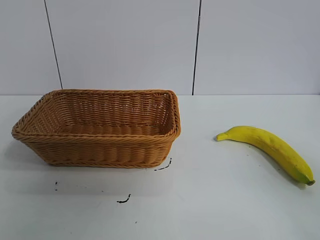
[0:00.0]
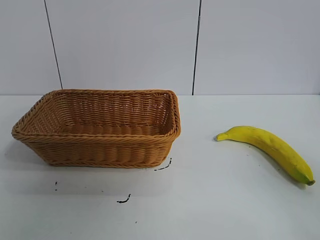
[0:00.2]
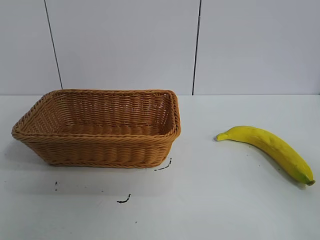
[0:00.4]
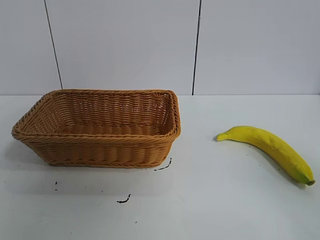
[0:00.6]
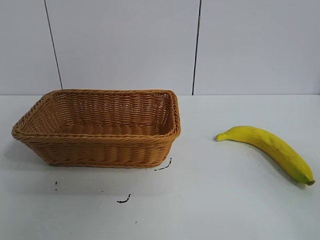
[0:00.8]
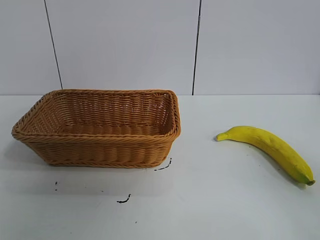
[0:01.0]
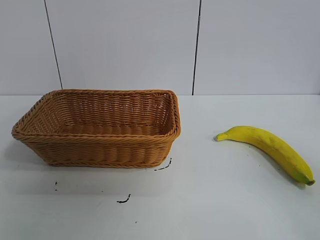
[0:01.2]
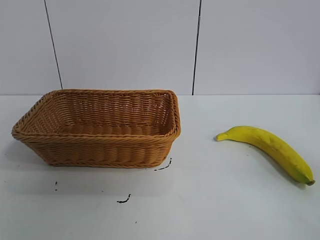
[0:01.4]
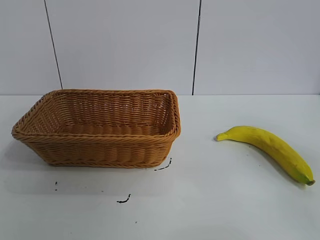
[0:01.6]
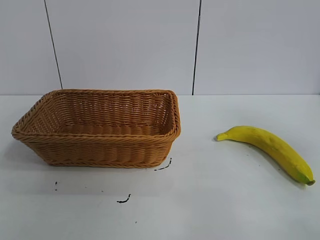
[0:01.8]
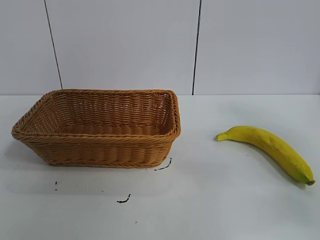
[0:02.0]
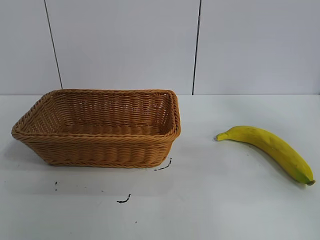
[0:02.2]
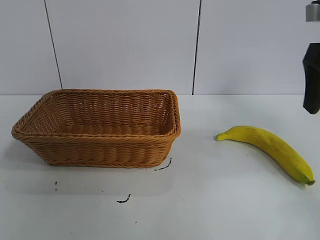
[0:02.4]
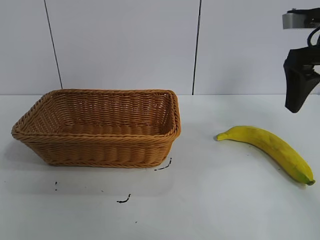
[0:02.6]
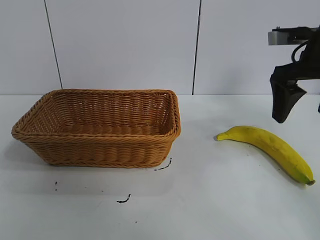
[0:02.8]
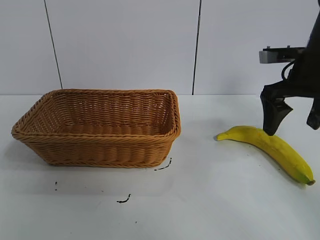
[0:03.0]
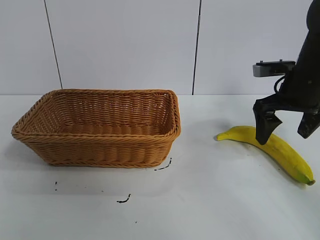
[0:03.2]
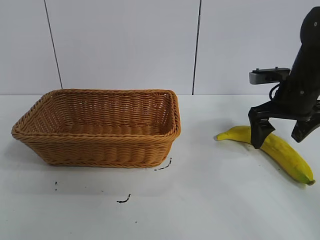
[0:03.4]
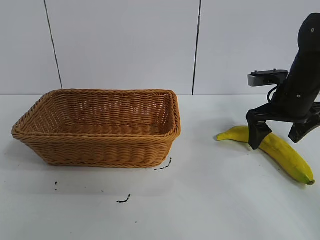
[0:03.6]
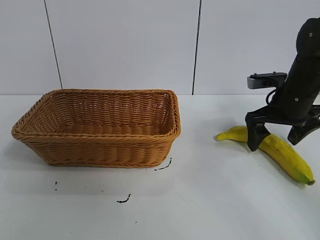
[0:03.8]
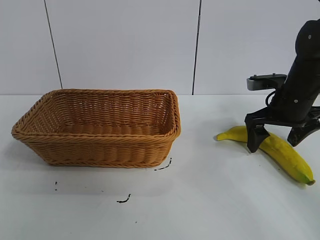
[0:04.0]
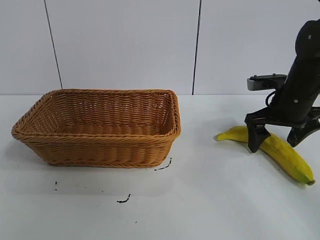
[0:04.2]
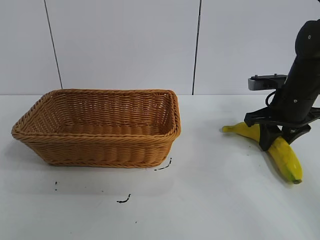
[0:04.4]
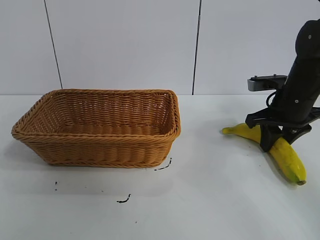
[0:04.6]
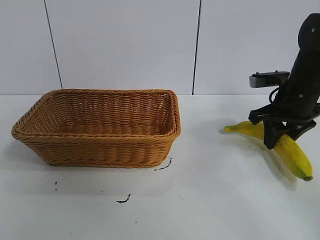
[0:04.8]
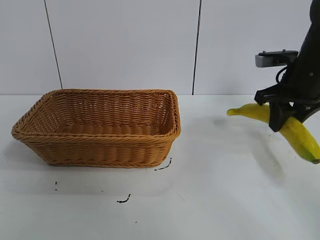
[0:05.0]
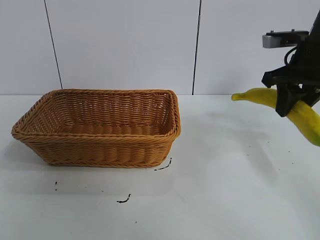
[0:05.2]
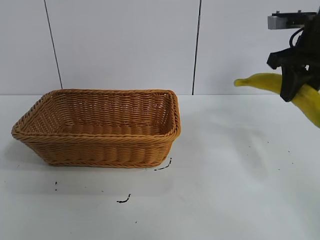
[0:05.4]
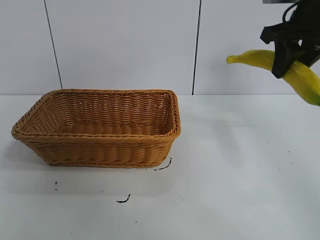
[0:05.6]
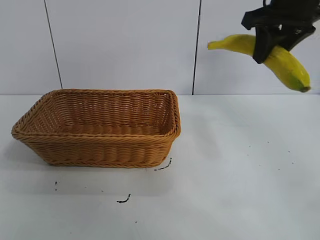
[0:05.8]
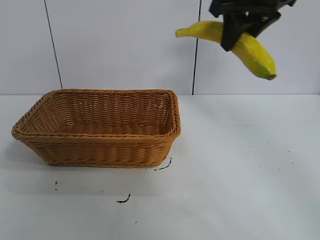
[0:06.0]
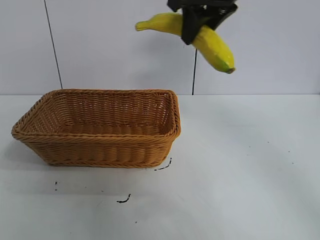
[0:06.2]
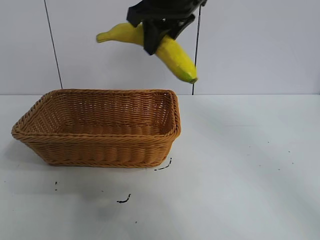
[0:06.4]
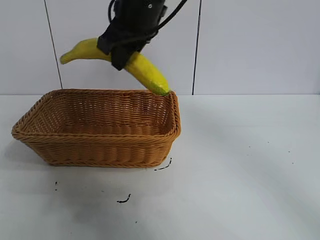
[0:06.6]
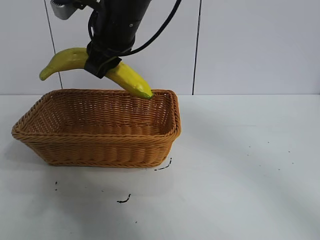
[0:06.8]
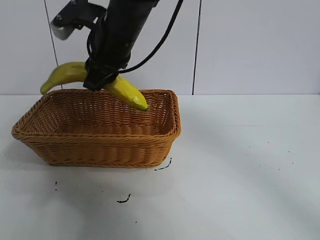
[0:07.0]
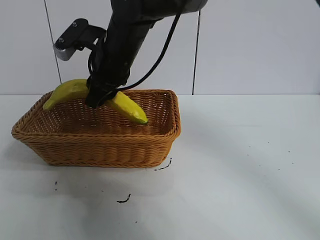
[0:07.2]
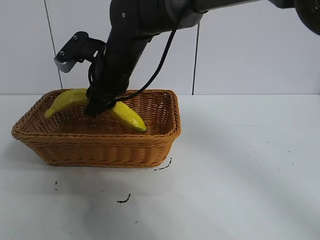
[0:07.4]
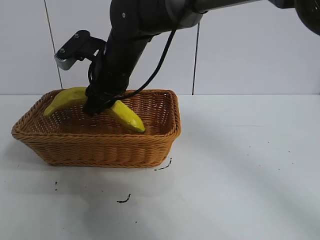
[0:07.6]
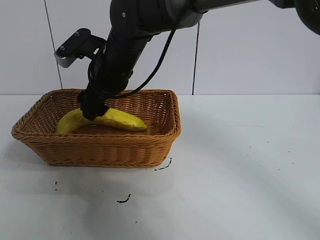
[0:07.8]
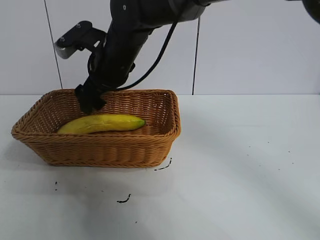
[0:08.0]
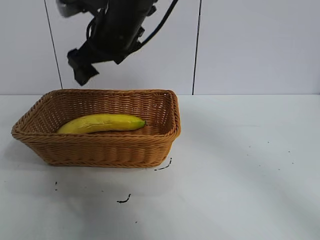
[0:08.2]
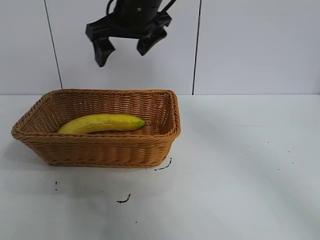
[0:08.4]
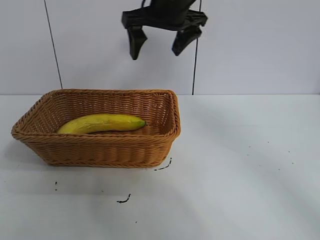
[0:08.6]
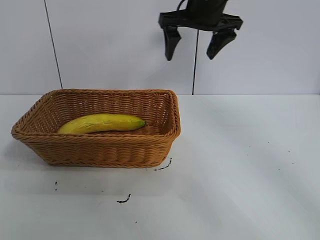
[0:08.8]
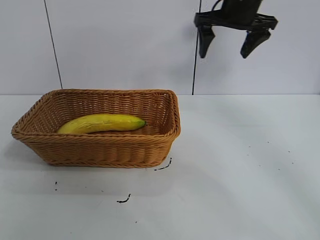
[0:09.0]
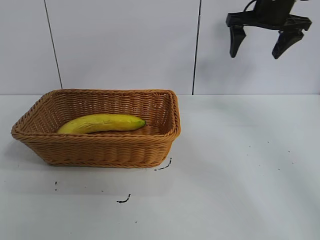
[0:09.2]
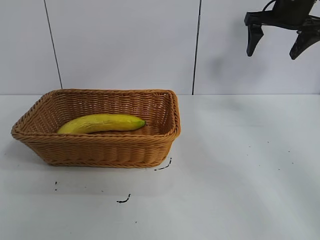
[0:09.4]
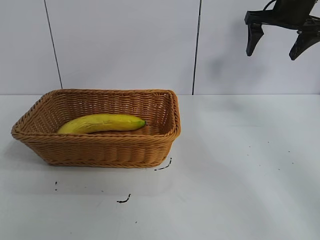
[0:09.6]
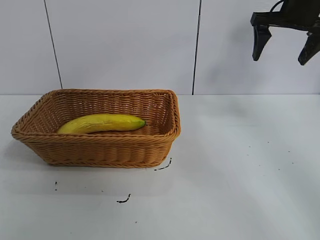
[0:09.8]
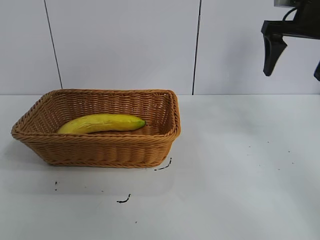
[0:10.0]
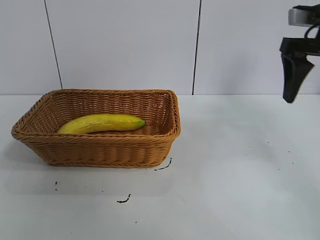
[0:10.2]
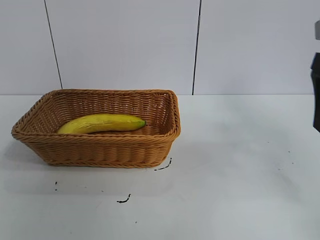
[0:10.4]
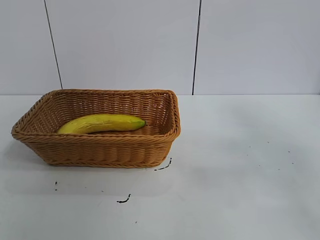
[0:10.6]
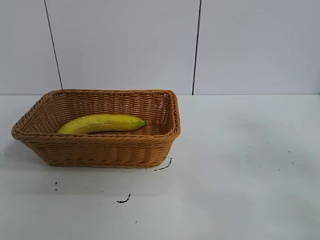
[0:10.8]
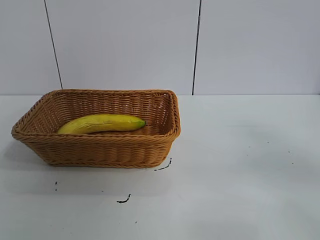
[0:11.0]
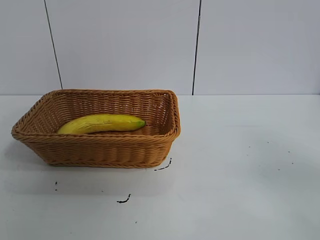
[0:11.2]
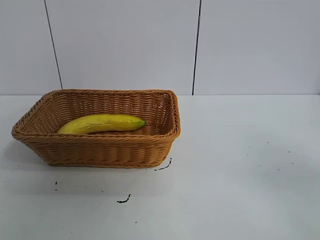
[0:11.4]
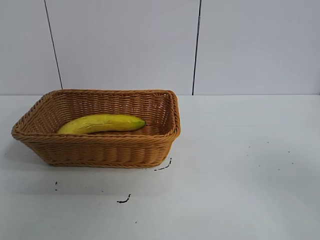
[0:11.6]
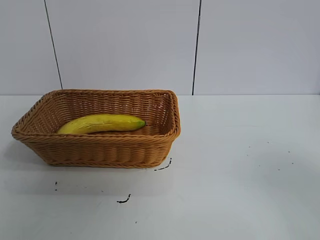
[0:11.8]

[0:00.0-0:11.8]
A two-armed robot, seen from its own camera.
Task of the whole recording: pick up the banana and put it into the basket.
Step, 0:01.2 to 0:04.4: Grasp the banana with right gripper.
Step, 0:04.6 to 0:07.8: Place the banana in the basket with right gripper.
